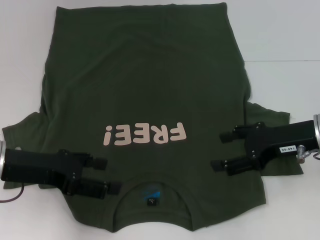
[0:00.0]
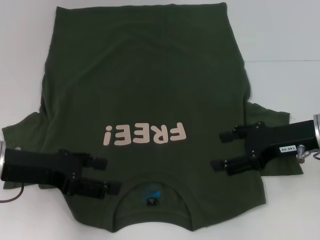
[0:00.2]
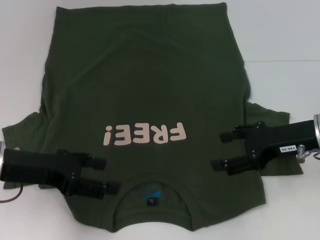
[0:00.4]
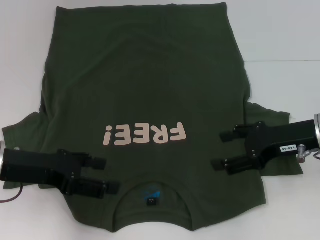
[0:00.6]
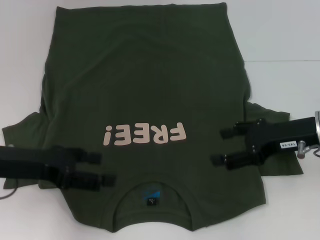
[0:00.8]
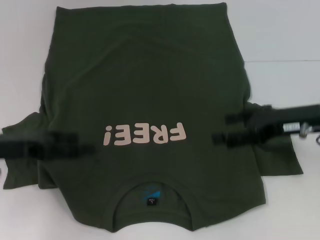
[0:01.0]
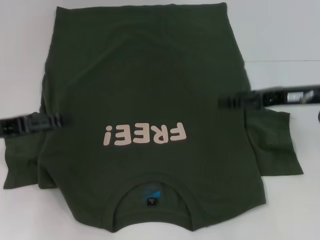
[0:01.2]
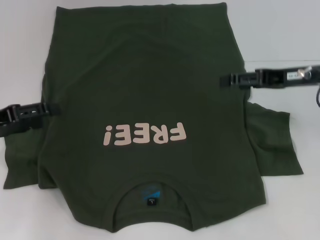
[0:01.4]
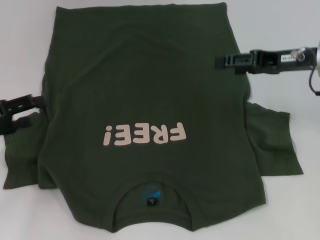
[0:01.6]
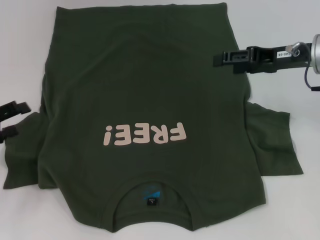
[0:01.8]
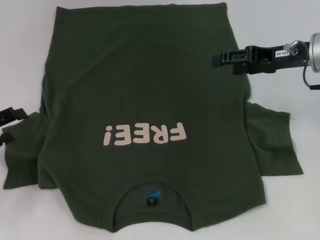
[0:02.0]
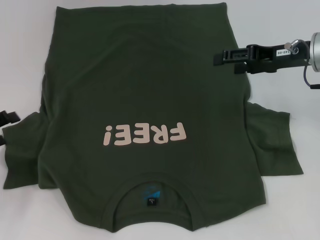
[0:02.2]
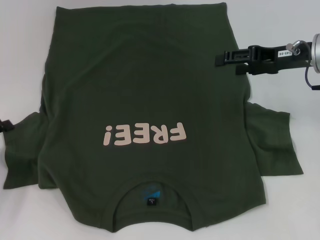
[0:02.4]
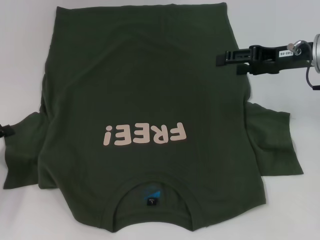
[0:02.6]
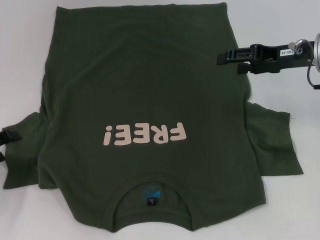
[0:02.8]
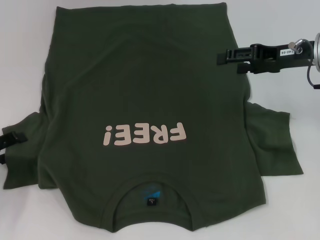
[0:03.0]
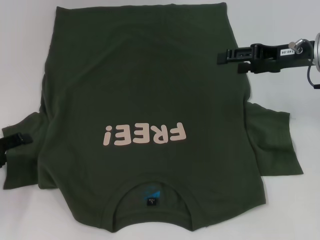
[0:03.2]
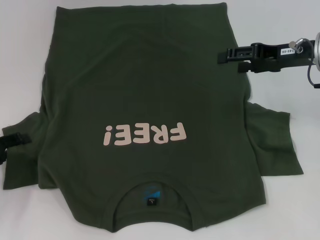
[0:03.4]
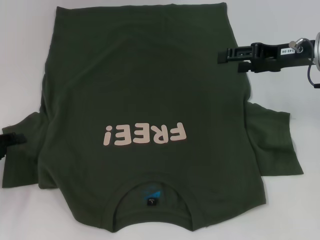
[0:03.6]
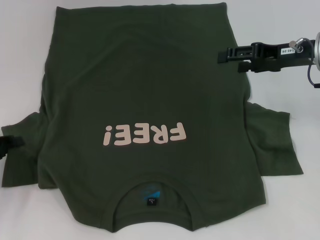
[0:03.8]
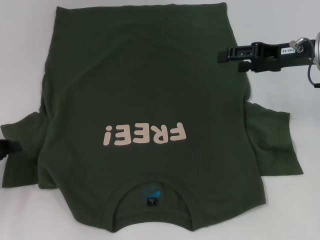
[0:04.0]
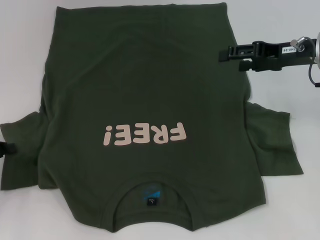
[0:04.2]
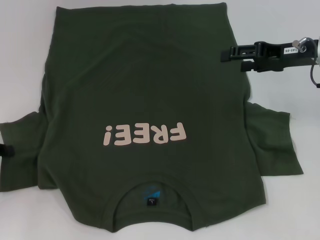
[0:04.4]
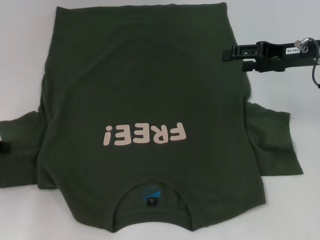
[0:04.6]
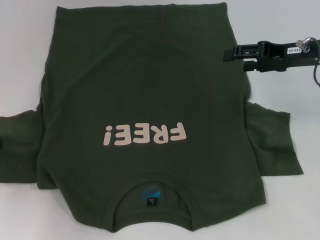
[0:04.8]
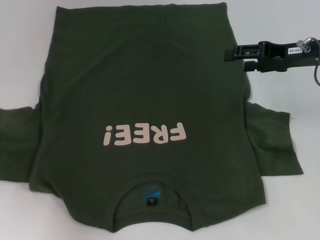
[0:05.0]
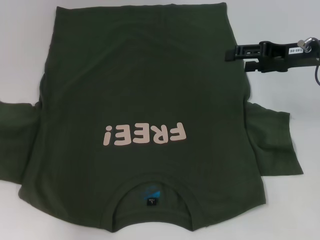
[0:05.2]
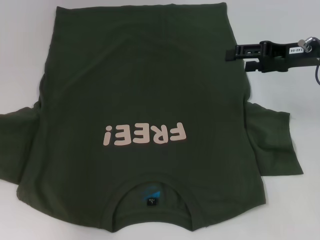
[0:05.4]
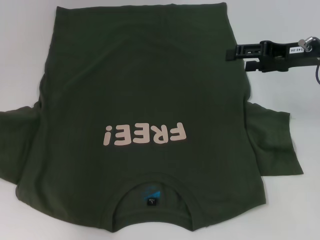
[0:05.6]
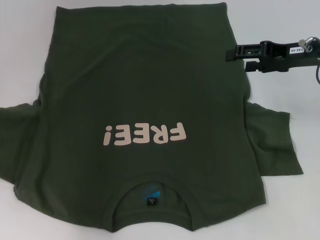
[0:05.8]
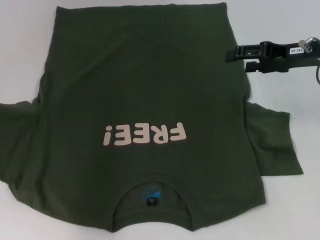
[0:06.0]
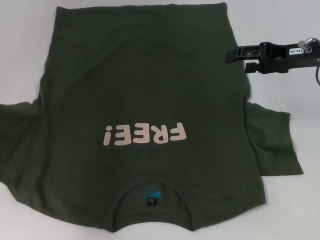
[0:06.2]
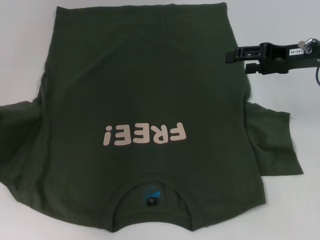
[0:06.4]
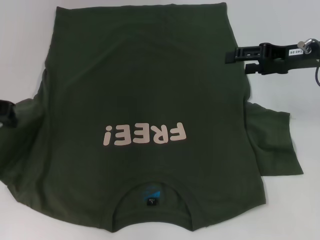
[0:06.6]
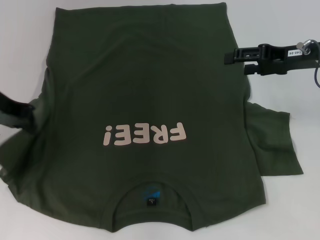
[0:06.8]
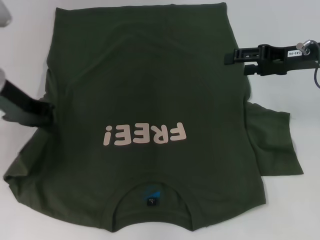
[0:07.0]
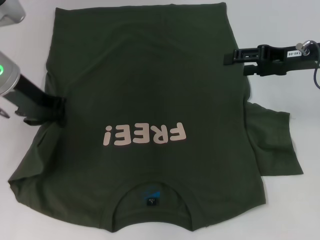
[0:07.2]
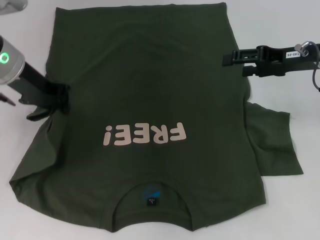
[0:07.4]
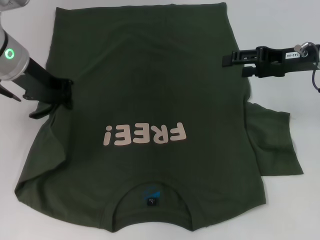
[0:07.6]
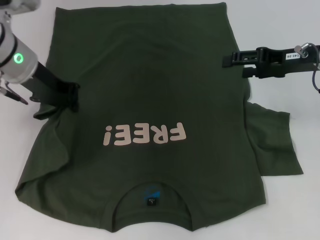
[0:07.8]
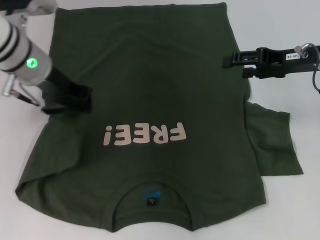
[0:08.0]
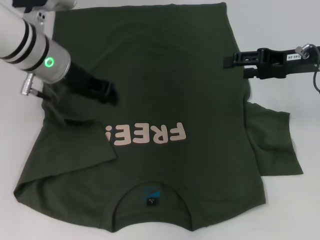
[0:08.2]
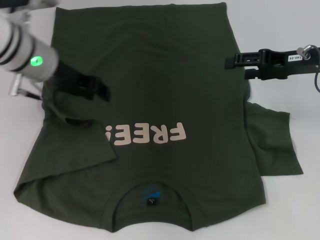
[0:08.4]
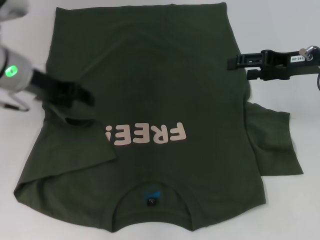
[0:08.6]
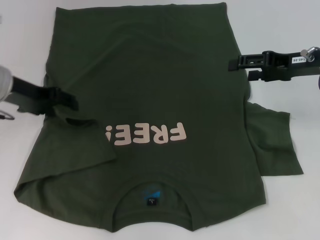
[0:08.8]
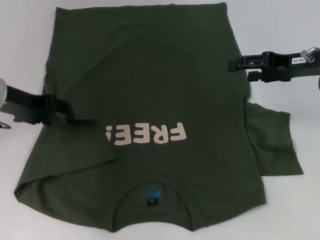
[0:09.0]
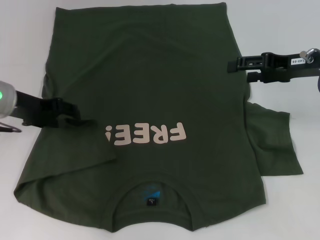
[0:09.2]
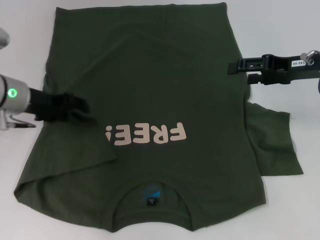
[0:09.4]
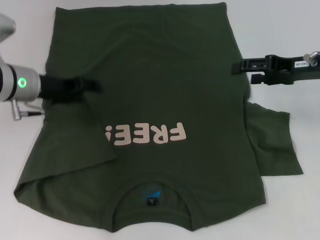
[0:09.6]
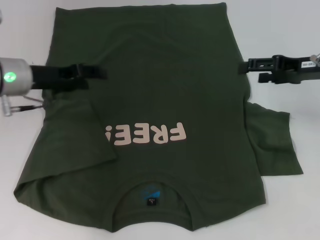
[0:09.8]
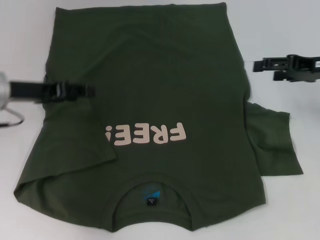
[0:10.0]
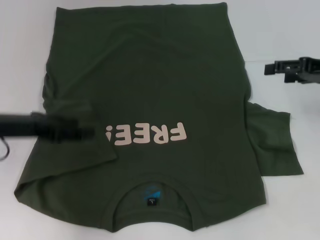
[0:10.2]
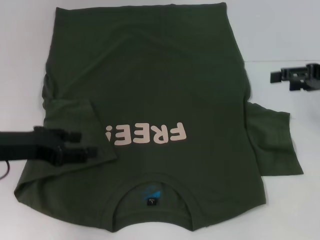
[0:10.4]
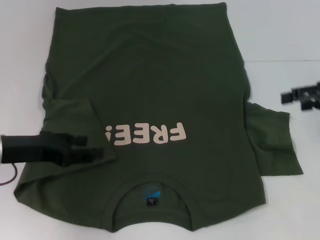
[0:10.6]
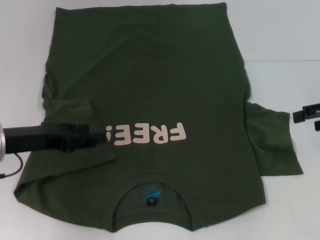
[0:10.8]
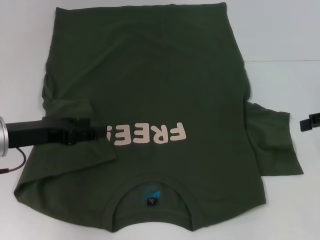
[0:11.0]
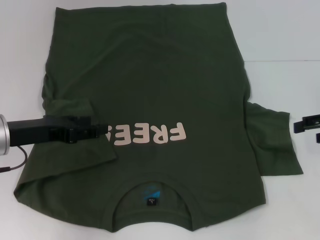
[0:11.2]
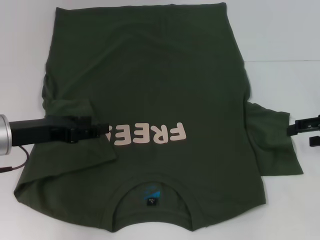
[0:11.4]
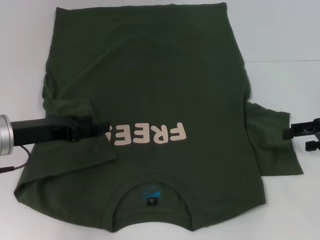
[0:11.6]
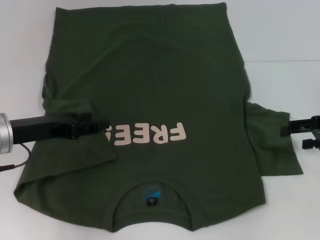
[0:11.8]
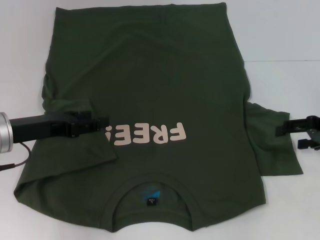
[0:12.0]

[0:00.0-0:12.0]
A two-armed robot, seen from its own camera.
Step, 0:00.0 to 0:09.8: Fold the bottom left sleeve with your left hand.
0:00.0 to 0:01.6: The right gripper is displaced forward and upward by about 10 cm; the left gripper moves to the left, some 10 cm.
0:01.6 to 0:03.0: The left gripper travels downward by some 5 cm.
0:03.0 to 0:04.4: The left gripper closes up.
0:04.4 to 0:06.0: The left gripper heads upward and forward, covering about 15 cm.
0:06.0 to 0:07.6: The left gripper goes some 15 cm to the right and forward.
0:07.6 to 0:09.0: The left gripper is displaced downward by about 5 cm, and opens its fingers.
0:09.0 to 0:10.4: The left gripper goes roughly 10 cm backward. Meanwhile the right gripper is displaced to the right by about 5 cm.
0:10.4 to 0:12.0: The right gripper shifts about 5 cm downward.

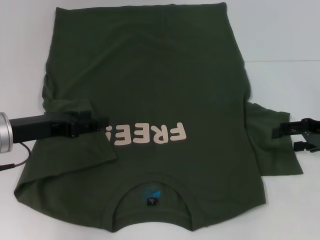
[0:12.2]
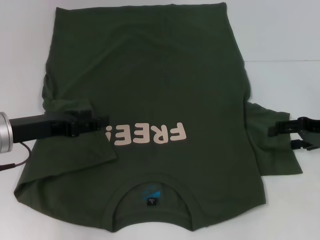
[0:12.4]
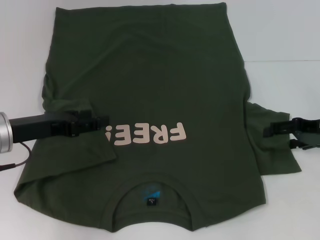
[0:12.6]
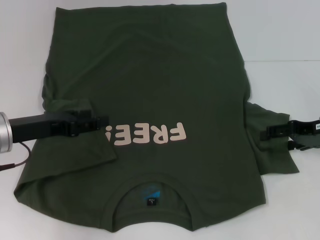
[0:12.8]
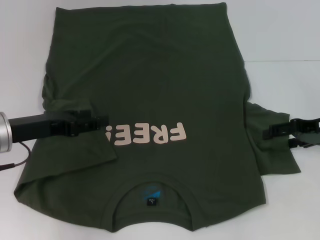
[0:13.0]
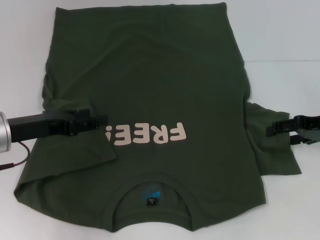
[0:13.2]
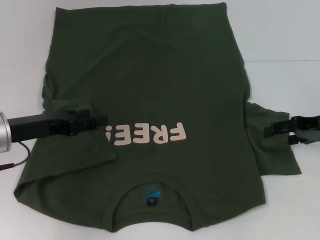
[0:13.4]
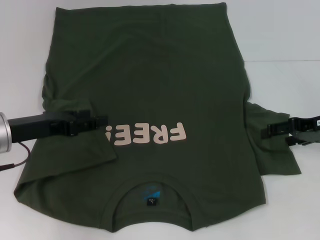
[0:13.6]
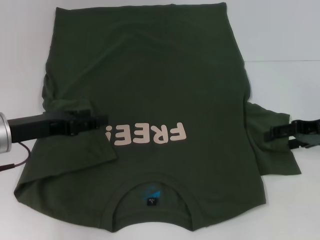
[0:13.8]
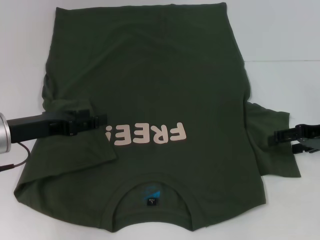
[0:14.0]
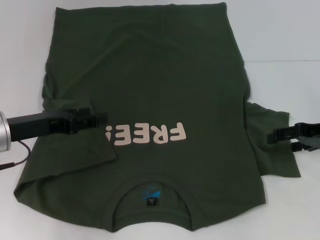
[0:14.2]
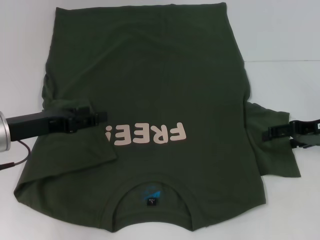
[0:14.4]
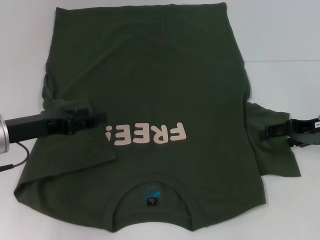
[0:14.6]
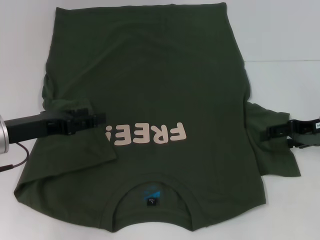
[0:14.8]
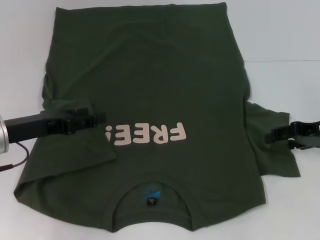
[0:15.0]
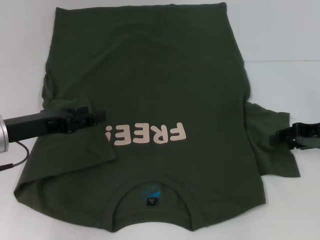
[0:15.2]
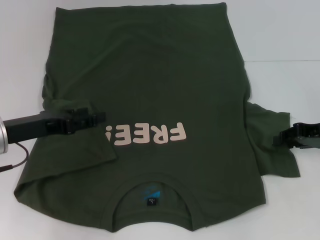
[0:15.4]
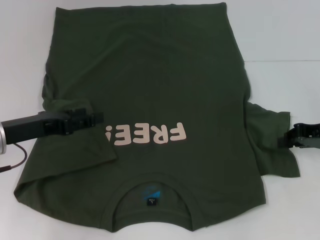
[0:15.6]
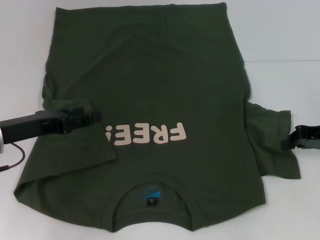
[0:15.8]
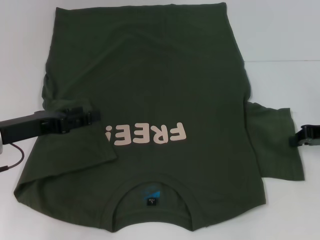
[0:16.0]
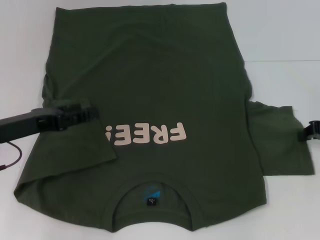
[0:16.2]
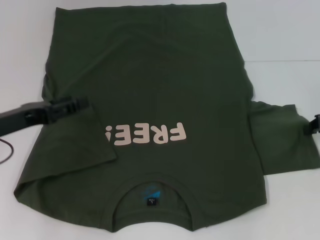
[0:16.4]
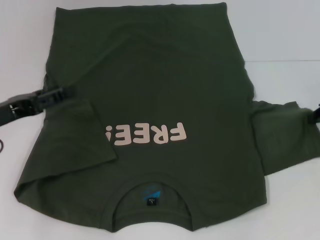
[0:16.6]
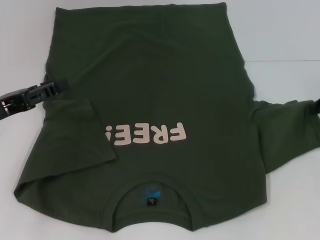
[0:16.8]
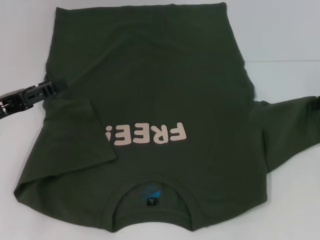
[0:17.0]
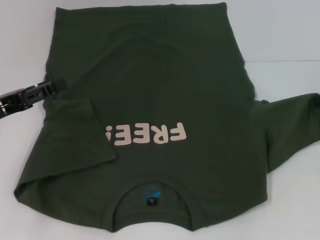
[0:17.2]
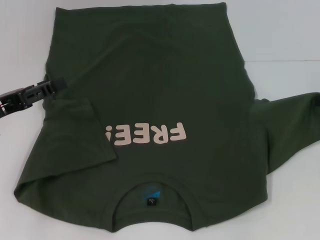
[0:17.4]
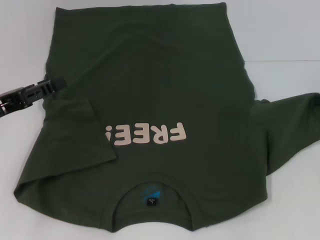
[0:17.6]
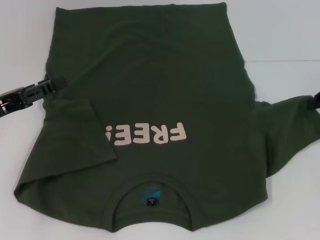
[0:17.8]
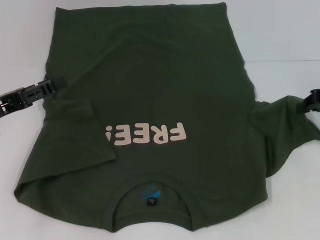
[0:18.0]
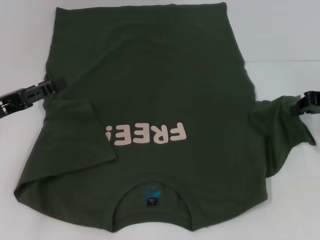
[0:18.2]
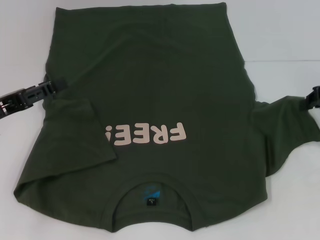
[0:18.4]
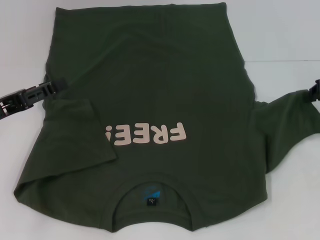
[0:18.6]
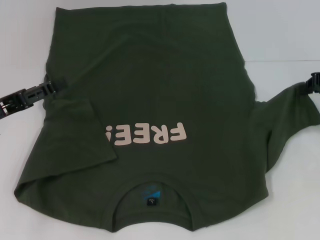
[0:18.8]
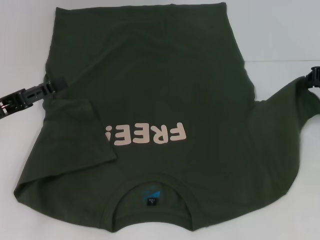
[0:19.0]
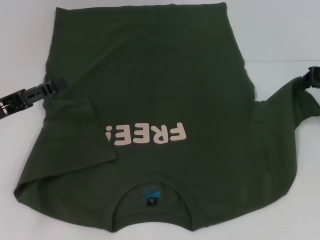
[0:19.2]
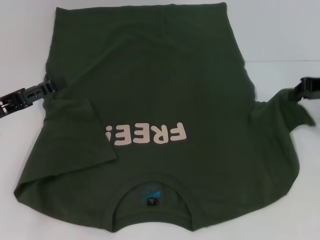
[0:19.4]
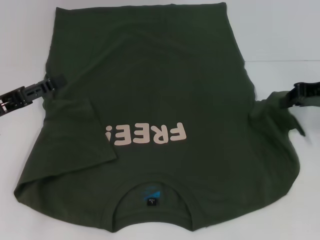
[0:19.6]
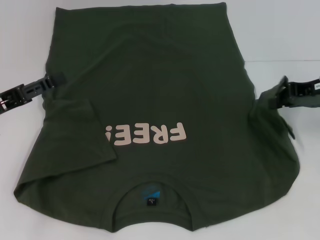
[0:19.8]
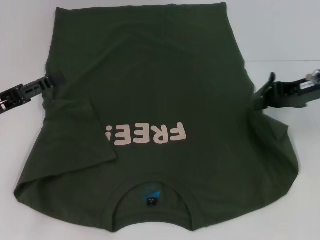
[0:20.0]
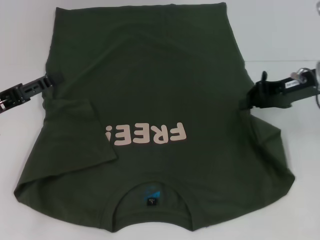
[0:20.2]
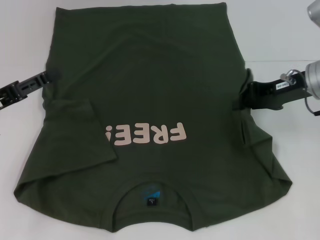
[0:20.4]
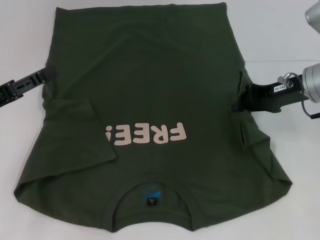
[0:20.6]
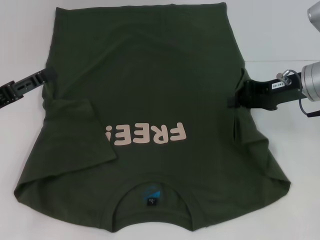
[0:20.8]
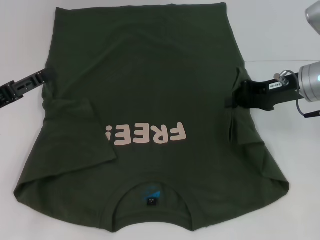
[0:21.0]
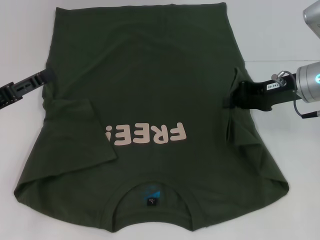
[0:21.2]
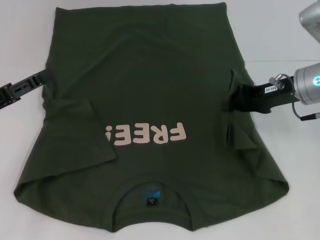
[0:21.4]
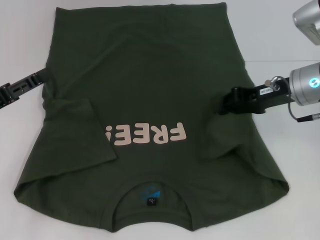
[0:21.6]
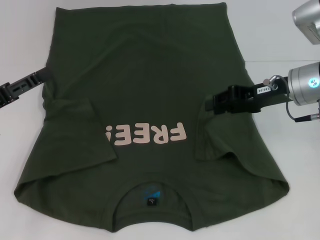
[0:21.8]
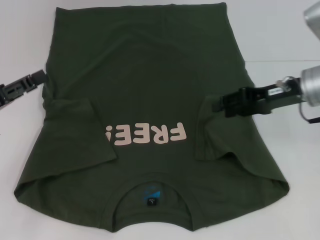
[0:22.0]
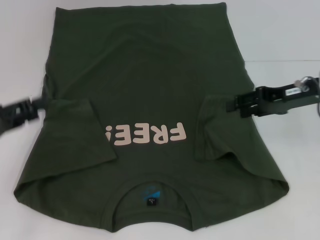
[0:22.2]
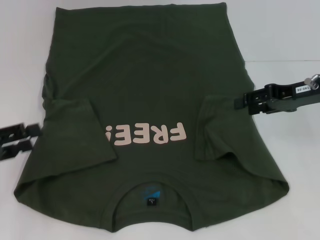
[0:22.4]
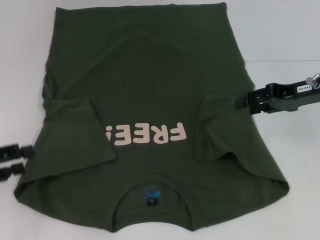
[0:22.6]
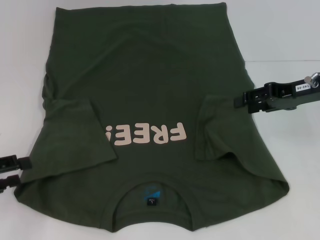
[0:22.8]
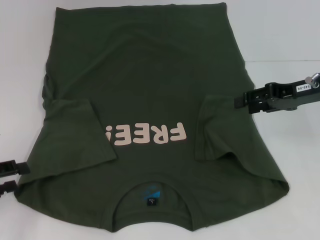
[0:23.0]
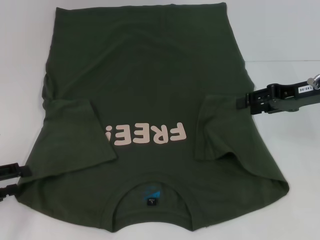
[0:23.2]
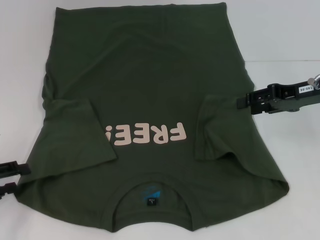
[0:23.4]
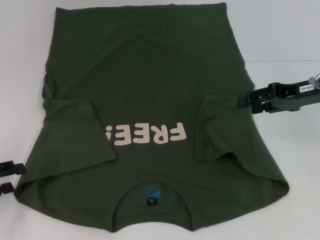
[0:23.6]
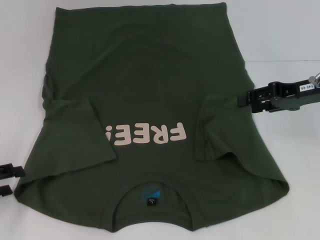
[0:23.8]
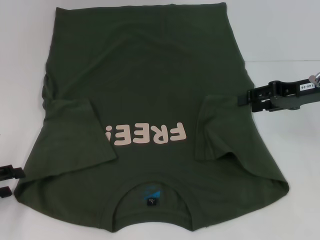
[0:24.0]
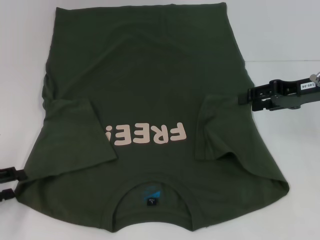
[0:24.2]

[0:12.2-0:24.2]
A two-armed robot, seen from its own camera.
Step, 0:12.2 to 0:22.2: Fold the bottom right sleeve with your right hand.
0:12.2 to 0:13.8: The grippers stay close to where they were, moving slightly.
0:13.8 to 0:15.2: Neither gripper changes place.
0:15.2 to 0:16.6: The right gripper closes up.
0:16.6 to 0:18.2: The grippers move only a little.
0:18.2 to 0:19.8: The grippers move only a little.
0:19.8 to 0:21.2: The right gripper shifts roughly 5 cm to the left.
0:21.2 to 0:22.6: The right gripper opens up; the left gripper changes place by some 5 cm.
0:22.6 to 0:24.2: The grippers make only small movements.
